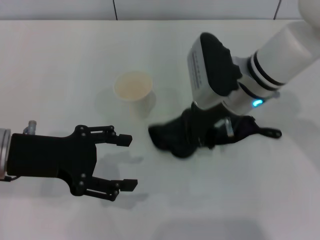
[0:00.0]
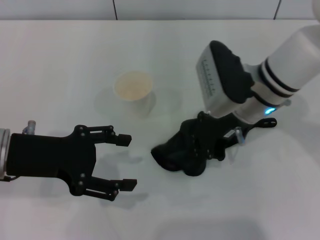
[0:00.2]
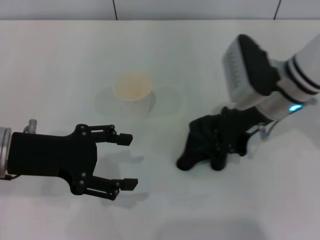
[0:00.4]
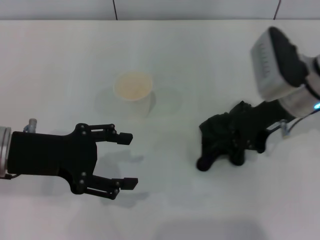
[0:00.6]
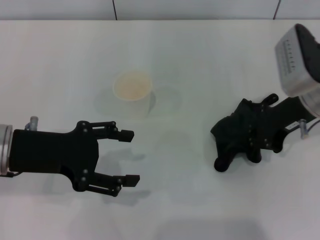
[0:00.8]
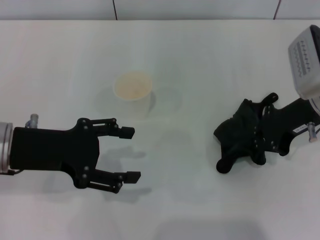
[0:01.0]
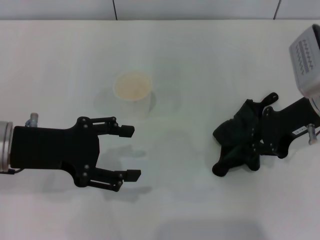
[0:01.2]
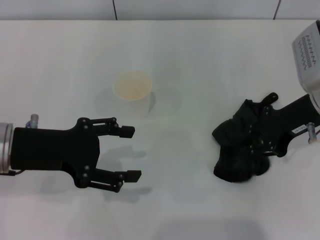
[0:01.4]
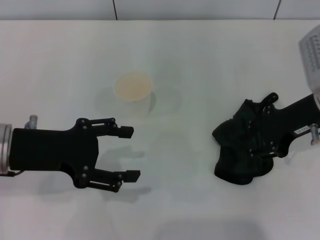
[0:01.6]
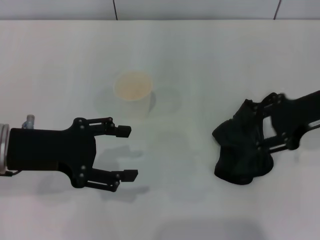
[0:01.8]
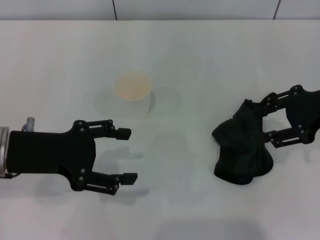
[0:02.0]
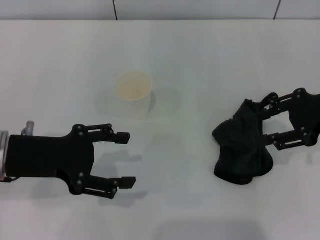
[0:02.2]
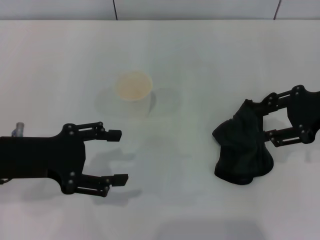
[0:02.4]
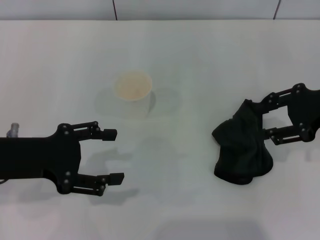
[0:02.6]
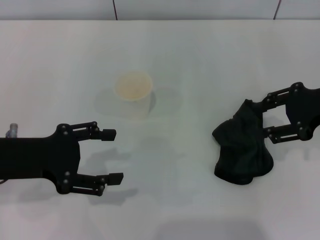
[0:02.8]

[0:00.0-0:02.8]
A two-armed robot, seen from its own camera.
Step, 0:01.0 to 0:02.0: Place the rag on the table with the right gripper.
0:00.0 to 0:01.4: The right gripper shifts about 10 cm to the right.
0:01.4 to 0:02.8: The right gripper moves to the right, about 5 cm, and opens.

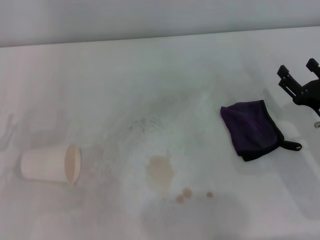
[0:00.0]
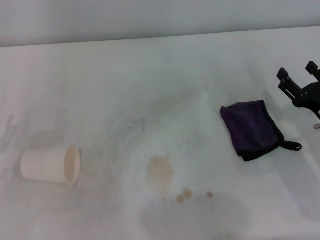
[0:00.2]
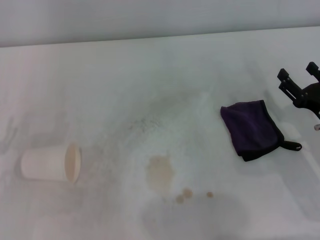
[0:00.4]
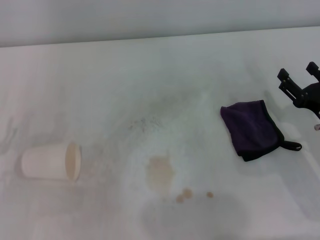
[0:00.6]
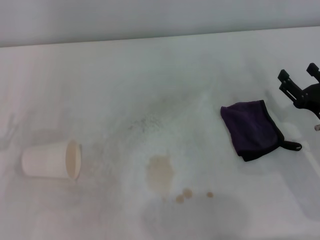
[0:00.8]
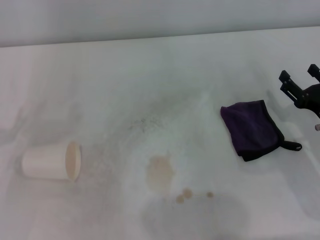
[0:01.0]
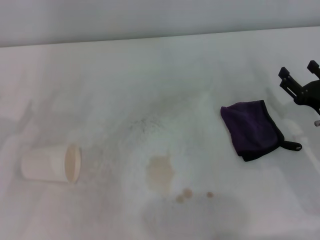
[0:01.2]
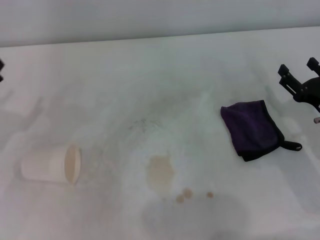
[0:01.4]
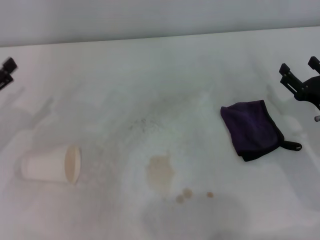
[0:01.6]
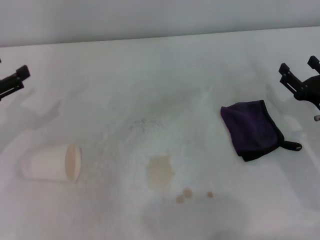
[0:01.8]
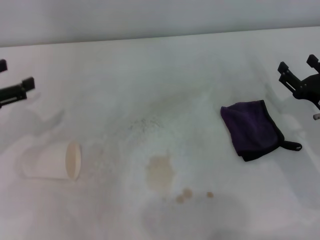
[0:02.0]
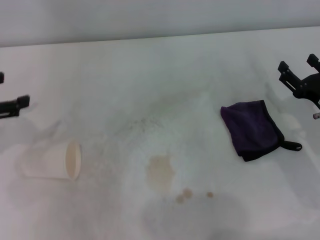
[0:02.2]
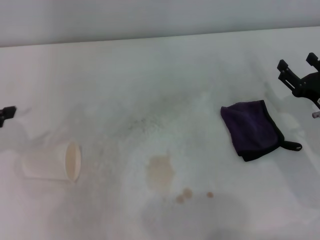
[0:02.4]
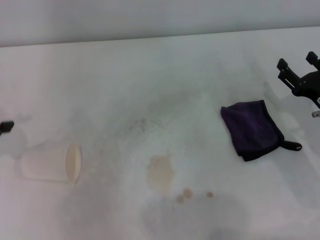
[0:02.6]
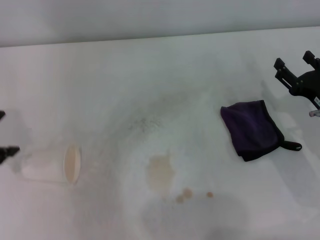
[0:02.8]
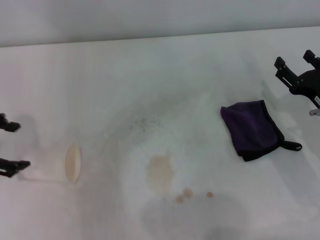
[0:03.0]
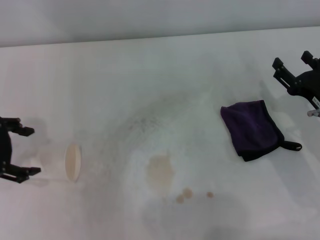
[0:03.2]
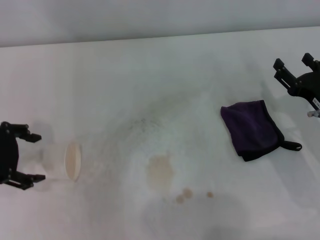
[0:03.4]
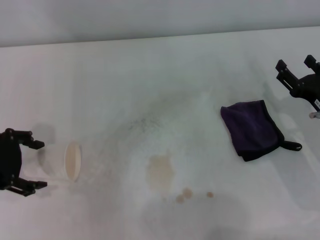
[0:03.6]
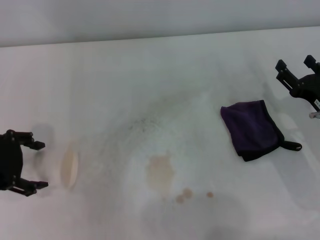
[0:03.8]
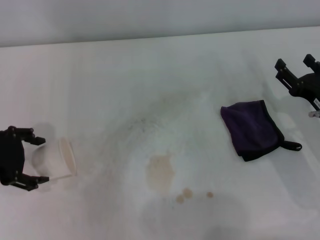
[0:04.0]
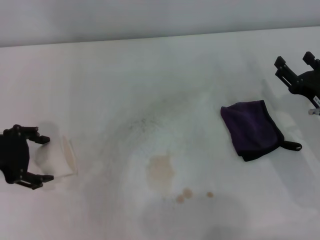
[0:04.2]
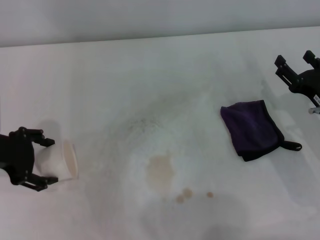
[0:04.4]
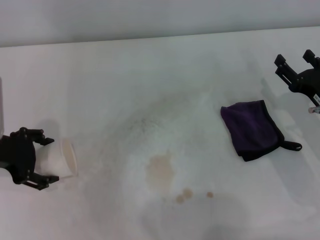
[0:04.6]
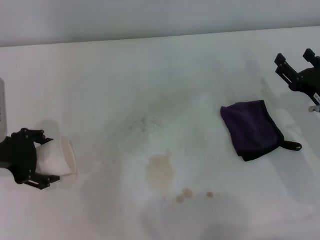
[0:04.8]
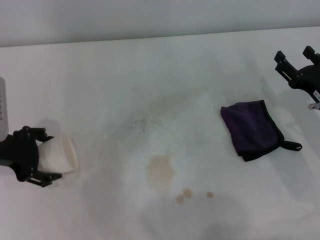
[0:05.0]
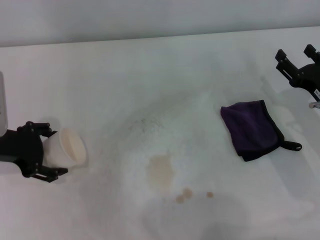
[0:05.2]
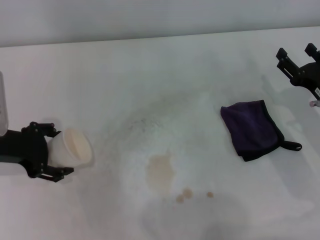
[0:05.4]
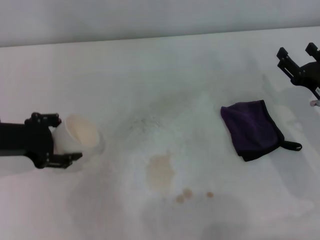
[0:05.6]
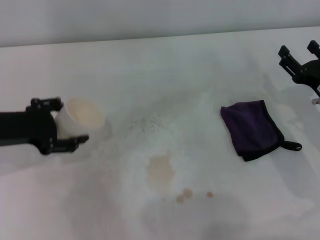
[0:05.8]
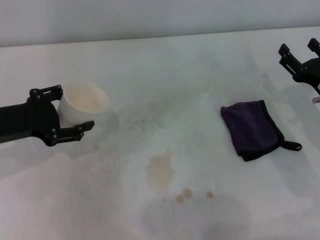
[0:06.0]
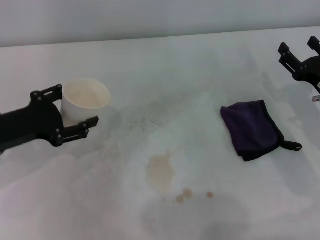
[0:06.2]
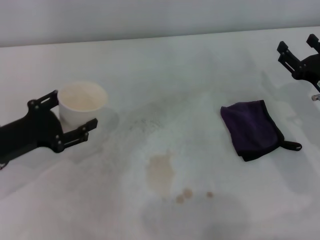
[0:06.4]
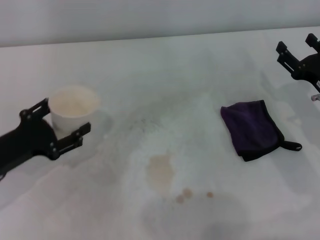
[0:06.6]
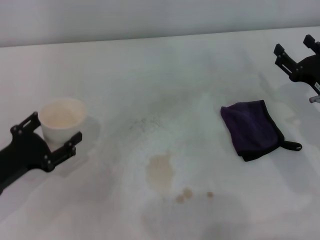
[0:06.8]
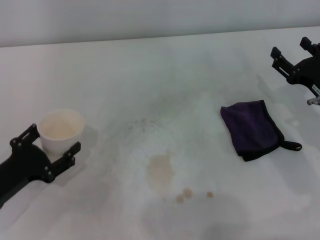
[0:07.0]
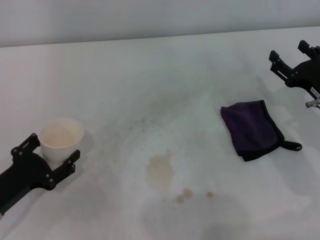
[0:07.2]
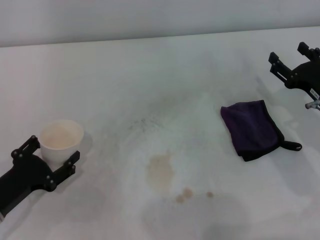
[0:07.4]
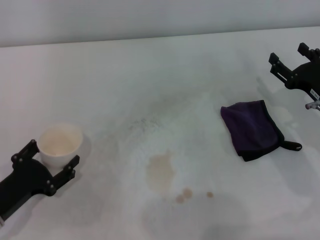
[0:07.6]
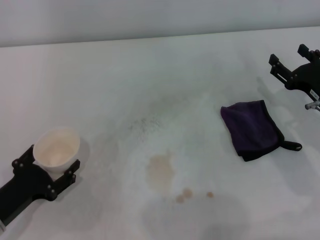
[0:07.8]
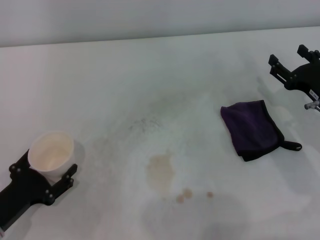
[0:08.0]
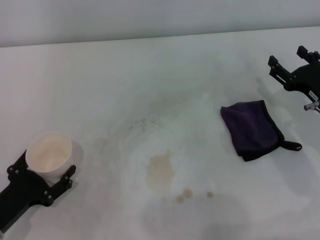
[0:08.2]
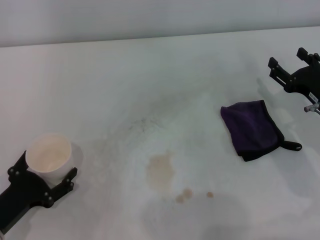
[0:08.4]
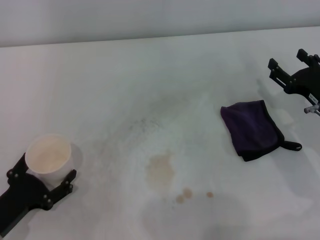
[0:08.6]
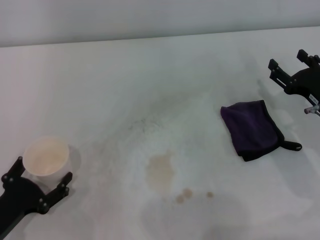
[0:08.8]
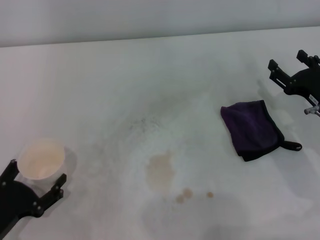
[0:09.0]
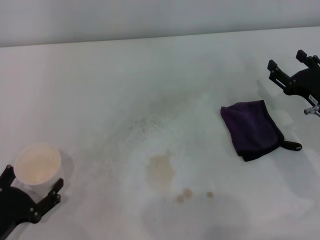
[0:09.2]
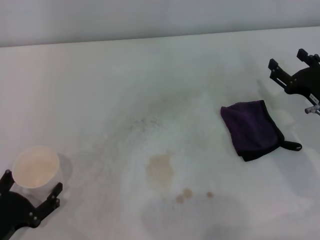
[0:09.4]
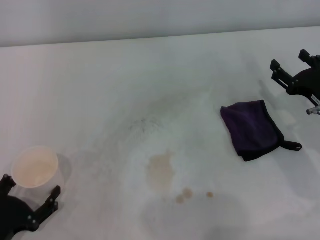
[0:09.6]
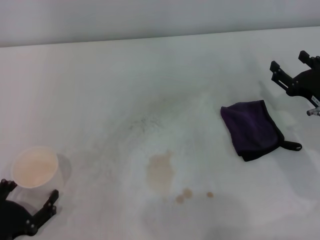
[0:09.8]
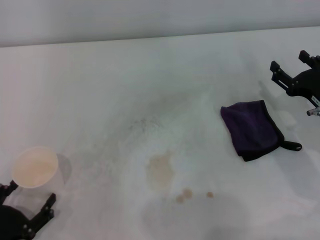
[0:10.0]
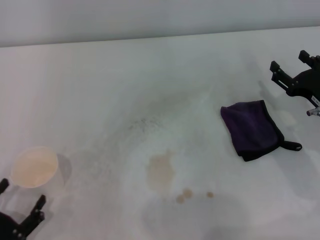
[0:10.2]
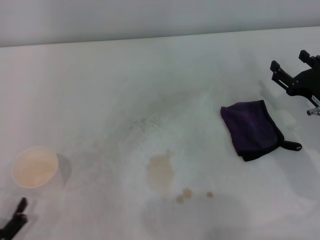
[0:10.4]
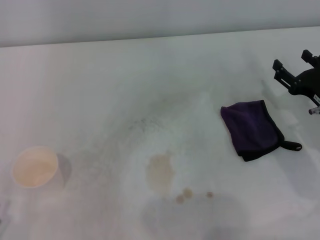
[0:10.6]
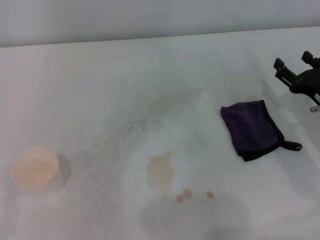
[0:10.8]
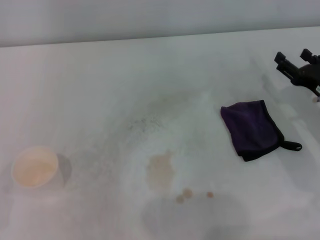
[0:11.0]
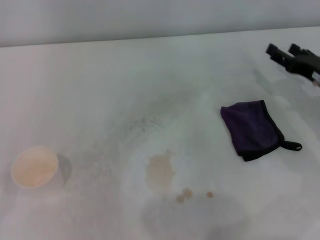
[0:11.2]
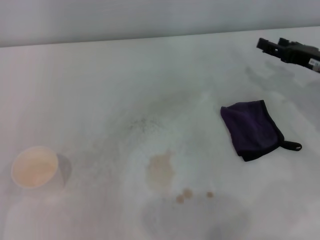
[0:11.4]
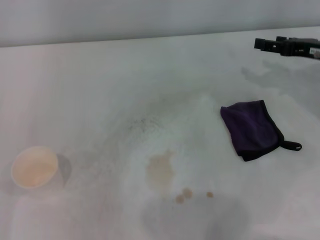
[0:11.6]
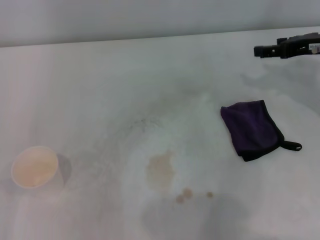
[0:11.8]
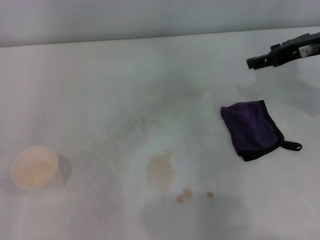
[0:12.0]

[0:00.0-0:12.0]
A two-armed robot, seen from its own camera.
Step, 0:00.0 to 0:04.8: Grasp the paper cup with the left gripper.
Step, 0:05.0 to 0:09.8: Stand the paper cup upright with the left gripper.
0:01.6 to 0:03.0: The left gripper moves upward, some 10 cm.
0:03.0 to 0:04.4: The left gripper ends up approximately 5 cm from where it was.
0:06.0 to 0:07.6: The left gripper is displaced downward and backward by some 15 cm.
0:07.6 to 0:09.0: The grippers make only small movements.
0:09.0 to 0:10.4: The left gripper is displaced backward by about 5 cm.
0:10.4 to 0:12.0: The right gripper is displaced upward and forward by roughly 20 cm. Meanwhile the left gripper ends up about 5 cm from where it was.

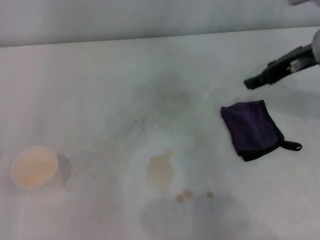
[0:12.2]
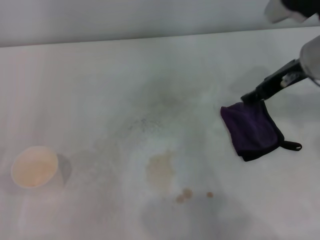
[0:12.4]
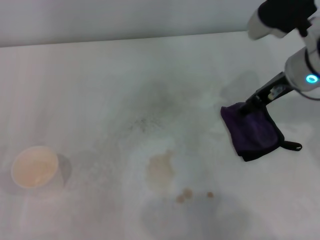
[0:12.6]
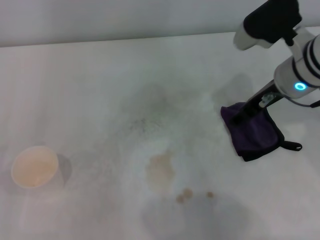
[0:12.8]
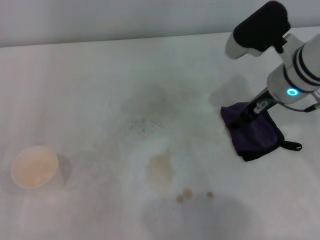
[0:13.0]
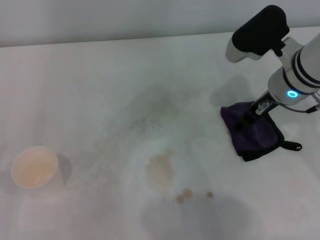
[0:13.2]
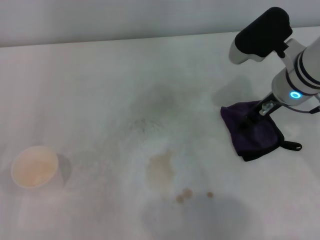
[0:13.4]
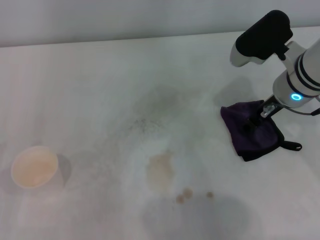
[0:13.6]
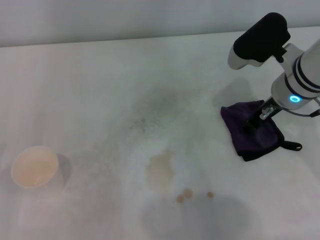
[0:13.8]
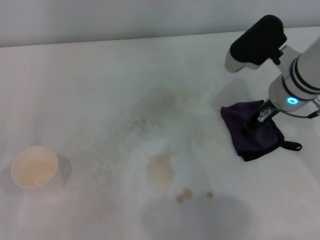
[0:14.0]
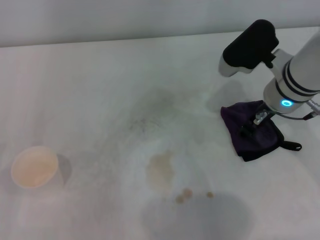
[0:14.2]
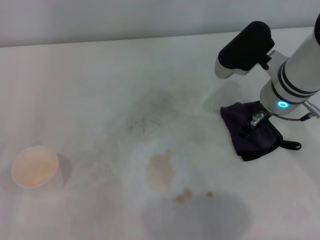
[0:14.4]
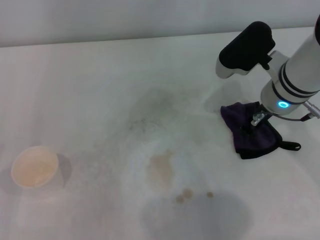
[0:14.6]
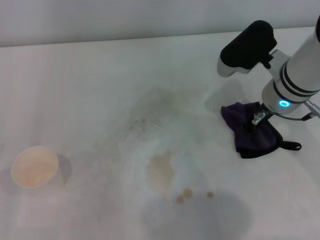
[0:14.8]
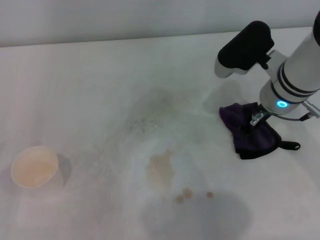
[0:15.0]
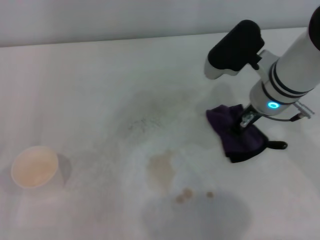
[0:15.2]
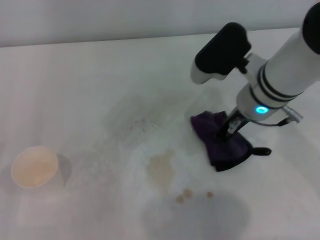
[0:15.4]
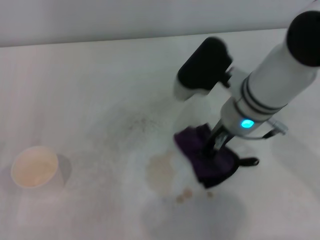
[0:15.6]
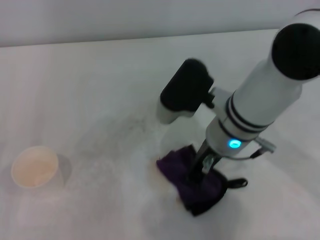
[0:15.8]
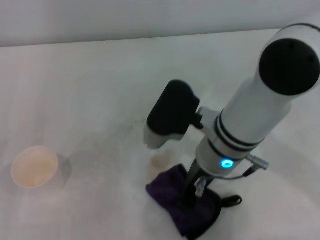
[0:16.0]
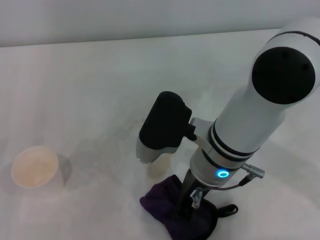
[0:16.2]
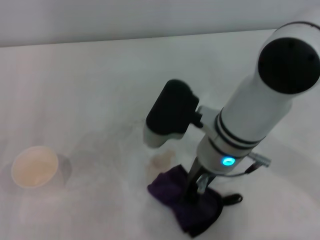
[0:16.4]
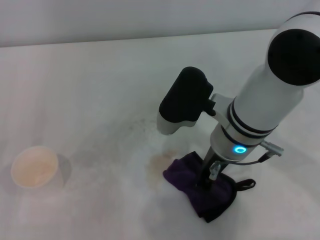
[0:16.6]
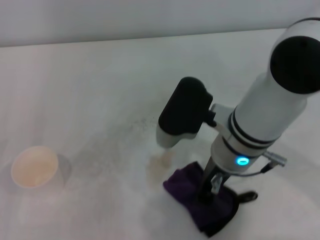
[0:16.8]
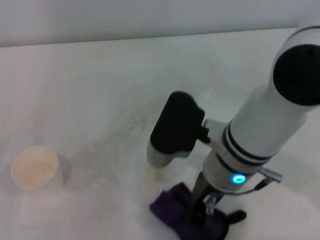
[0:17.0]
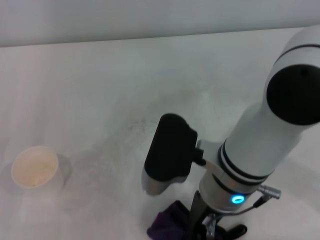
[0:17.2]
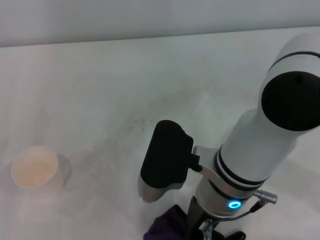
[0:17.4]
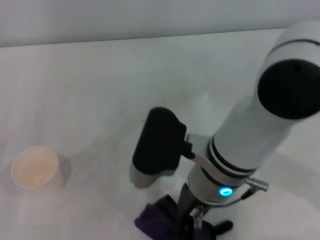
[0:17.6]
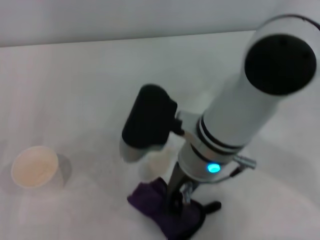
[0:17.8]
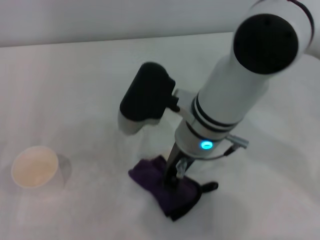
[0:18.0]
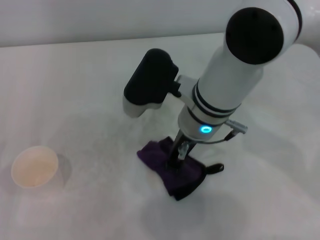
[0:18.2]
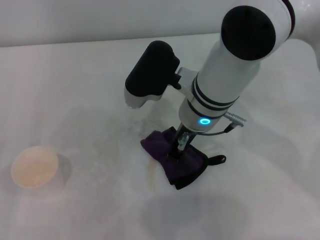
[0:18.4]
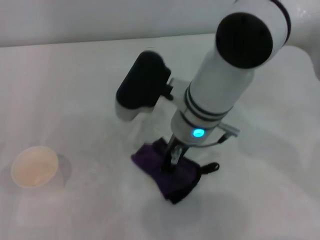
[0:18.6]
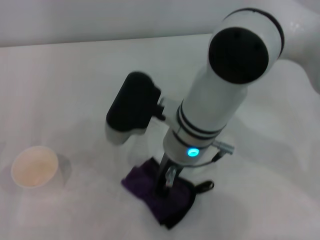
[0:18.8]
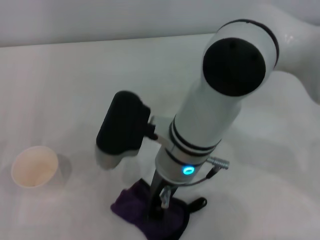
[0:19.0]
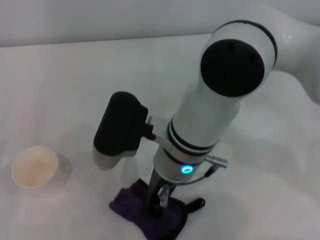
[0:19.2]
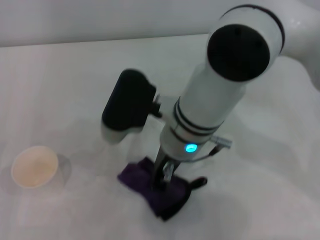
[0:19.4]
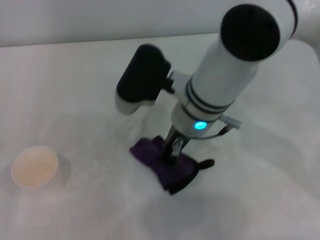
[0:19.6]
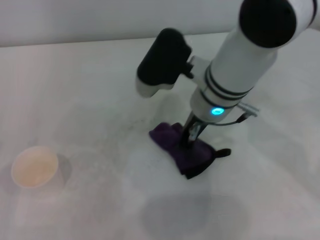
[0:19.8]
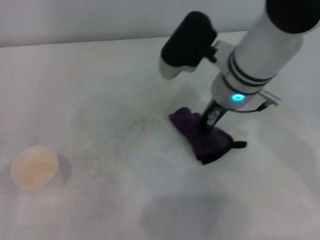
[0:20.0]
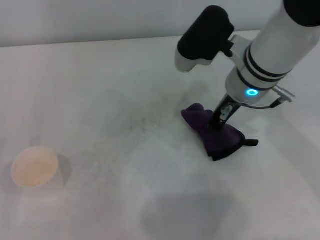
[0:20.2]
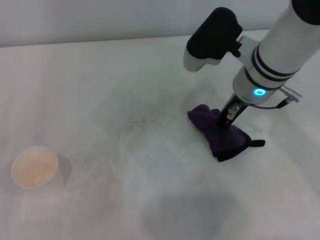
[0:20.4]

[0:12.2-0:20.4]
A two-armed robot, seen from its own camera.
Step, 0:12.2 to 0:14.8: Grasp the rag with the right gripper.
0:12.2 to 0:13.8: The right gripper travels downward by about 5 cm.
0:13.8 to 0:15.4: The right gripper goes approximately 5 cm to the left, and closes its fingers.
0:15.4 to 0:17.2: The right gripper shifts about 10 cm backward and to the left.
0:17.2 to 0:18.8: The right gripper travels forward by about 5 cm.
0:18.8 to 0:20.4: The right gripper heads to the right and forward, covering some 10 cm.
